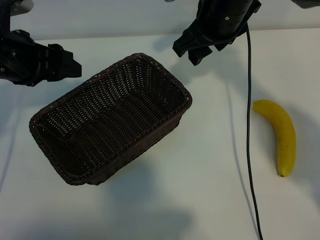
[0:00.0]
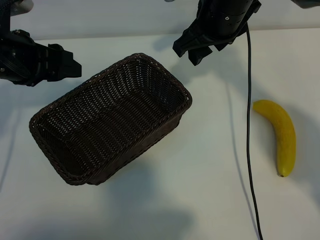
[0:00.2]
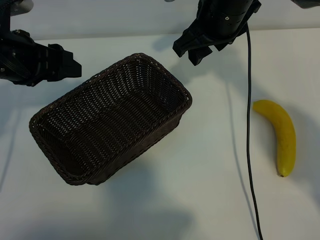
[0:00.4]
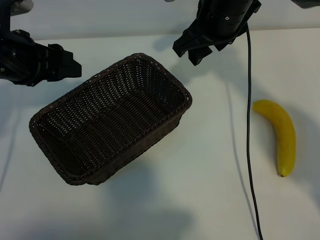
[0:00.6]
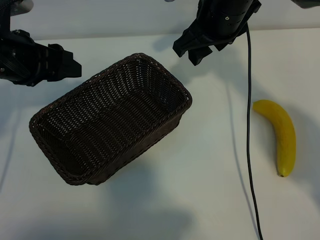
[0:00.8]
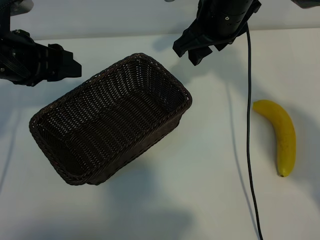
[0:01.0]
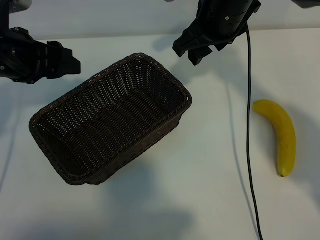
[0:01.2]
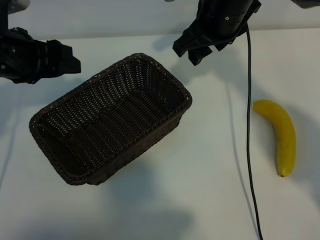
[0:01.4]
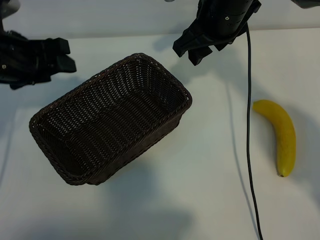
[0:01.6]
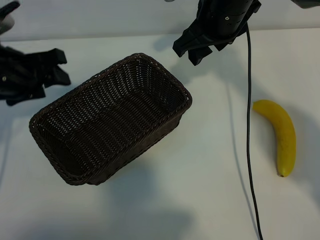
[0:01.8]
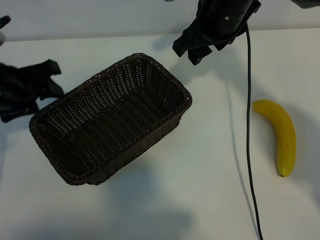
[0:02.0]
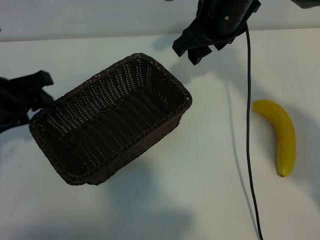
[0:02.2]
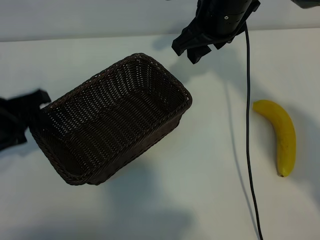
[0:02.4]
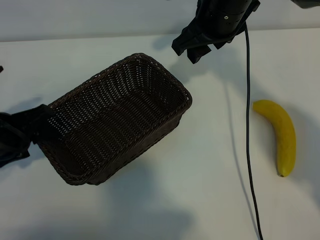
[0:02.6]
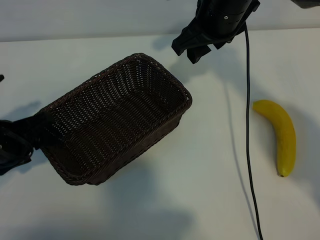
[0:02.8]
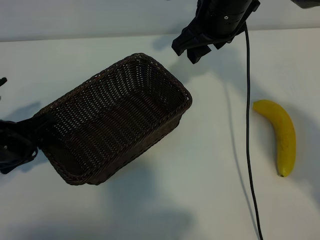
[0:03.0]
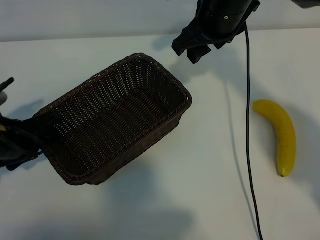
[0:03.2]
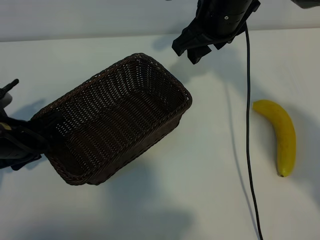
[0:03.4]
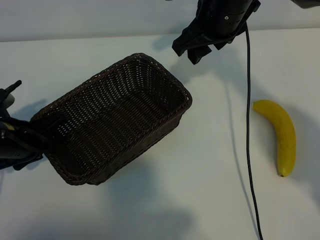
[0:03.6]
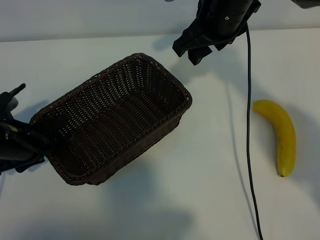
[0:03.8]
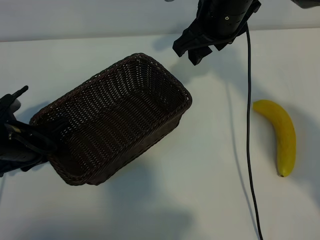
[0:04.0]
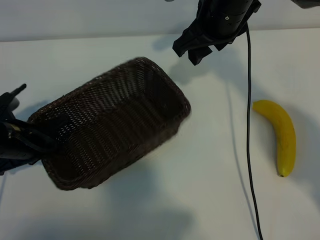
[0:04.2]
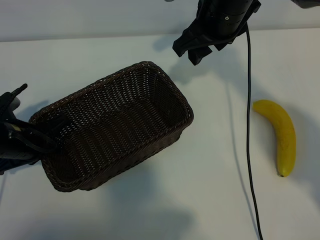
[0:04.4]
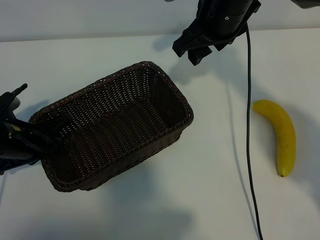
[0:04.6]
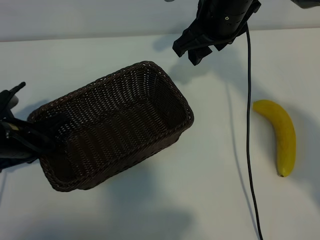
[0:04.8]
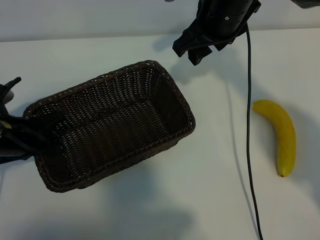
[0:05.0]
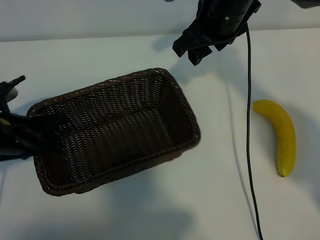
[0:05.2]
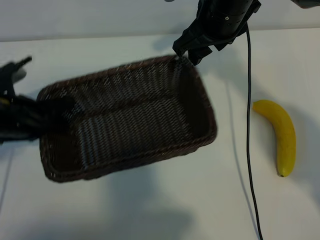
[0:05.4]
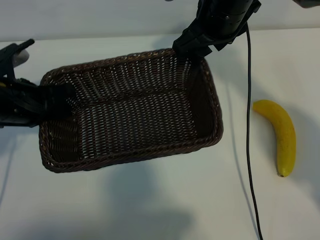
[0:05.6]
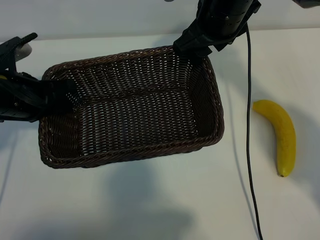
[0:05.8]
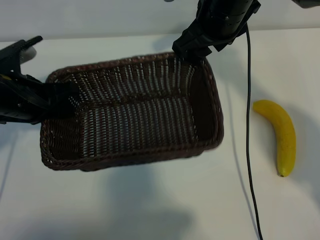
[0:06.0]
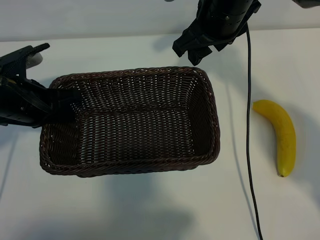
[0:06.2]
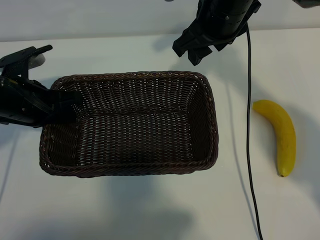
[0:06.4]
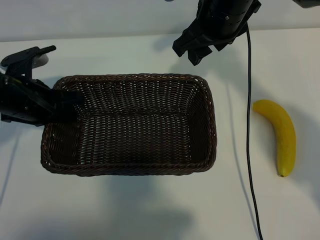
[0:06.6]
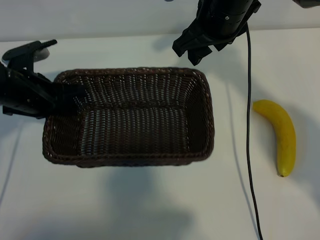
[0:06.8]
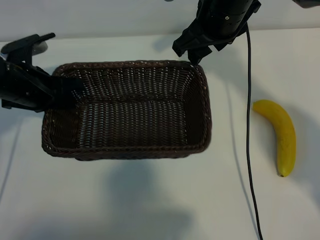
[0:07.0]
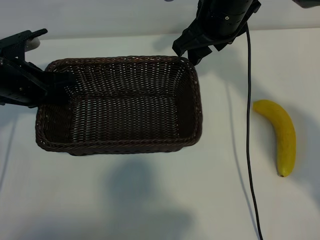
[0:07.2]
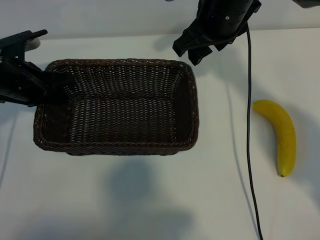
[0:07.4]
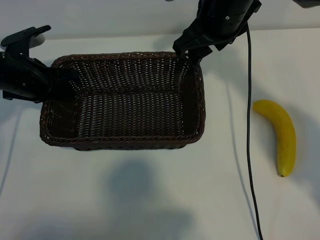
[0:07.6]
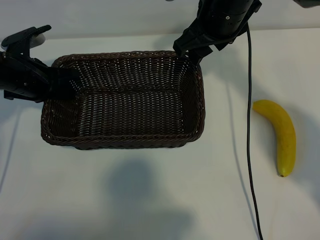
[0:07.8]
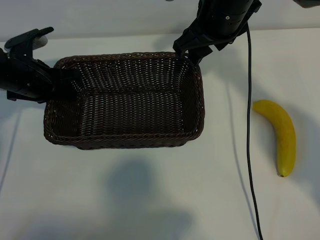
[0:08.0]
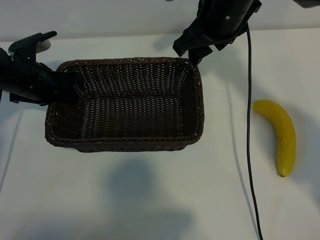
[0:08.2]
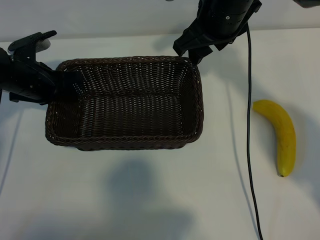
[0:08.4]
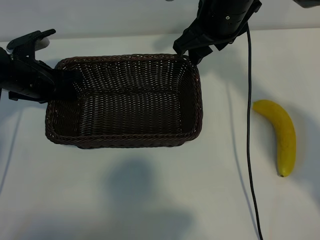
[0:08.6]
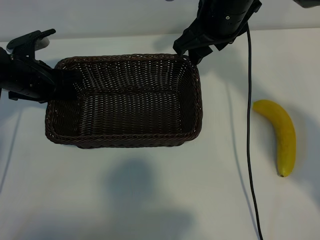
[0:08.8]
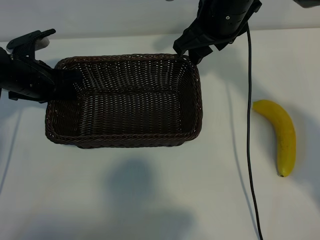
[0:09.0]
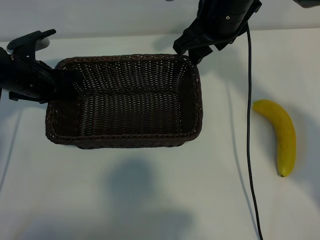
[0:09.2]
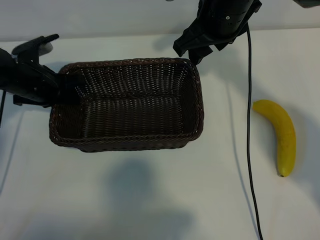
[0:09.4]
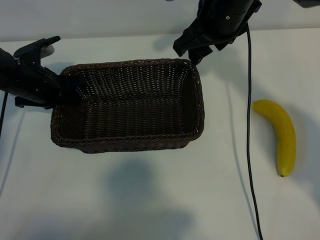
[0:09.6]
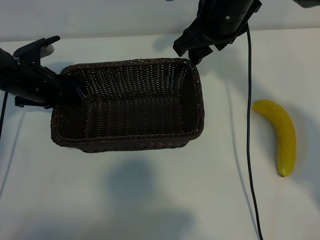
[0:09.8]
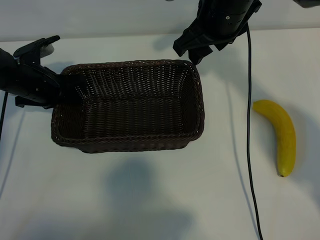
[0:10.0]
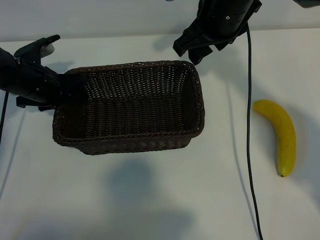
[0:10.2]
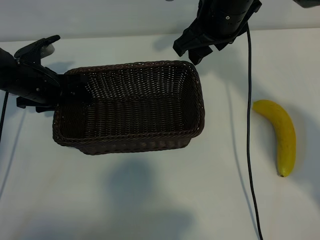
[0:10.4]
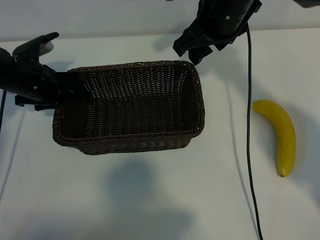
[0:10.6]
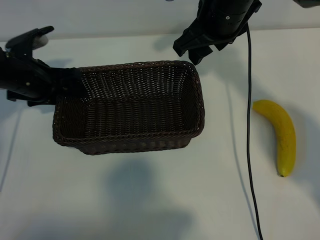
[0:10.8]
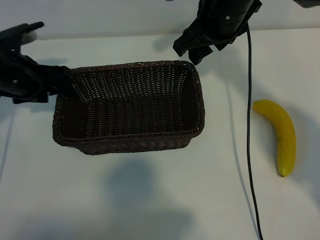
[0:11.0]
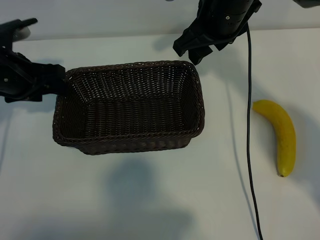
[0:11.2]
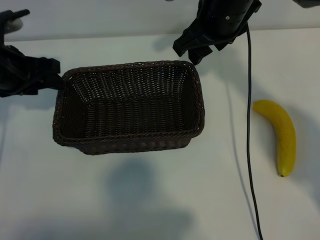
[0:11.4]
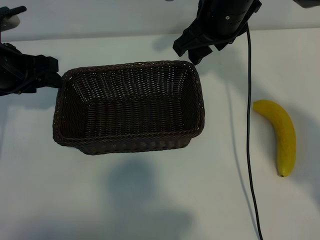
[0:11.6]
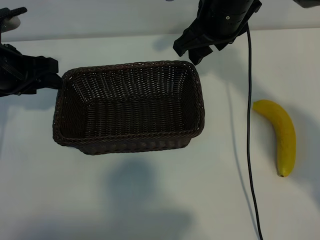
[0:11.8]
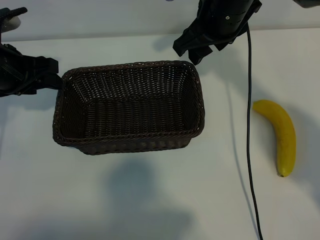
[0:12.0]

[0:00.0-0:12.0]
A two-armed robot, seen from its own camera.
Task of the whole recording: pick up the banana and put it into the basket.
Step, 0:01.2 to 0:04.6: Grasp the basket with the left gripper.
Step, 0:04.8 to 0:10.8: Place the basket in the center of the table with the left gripper.

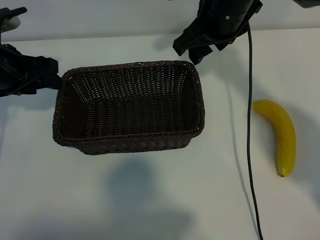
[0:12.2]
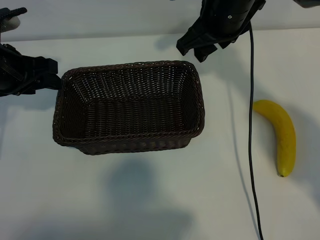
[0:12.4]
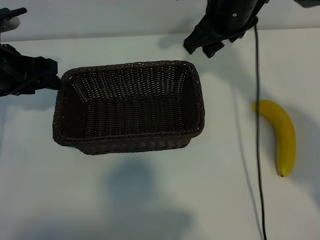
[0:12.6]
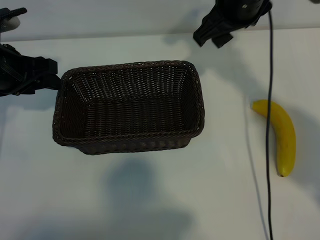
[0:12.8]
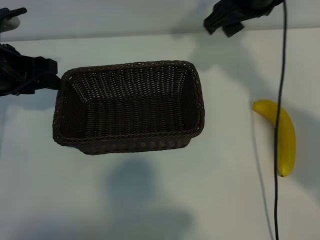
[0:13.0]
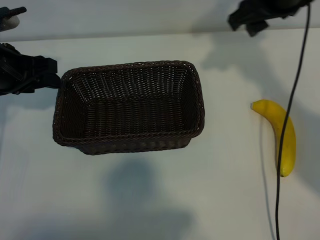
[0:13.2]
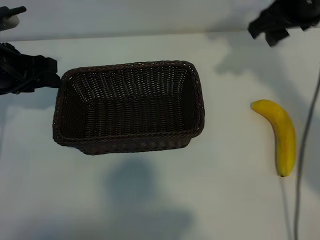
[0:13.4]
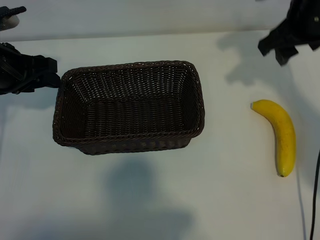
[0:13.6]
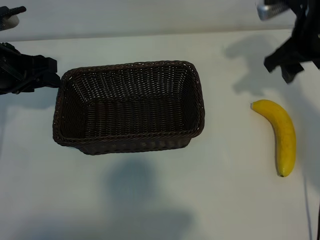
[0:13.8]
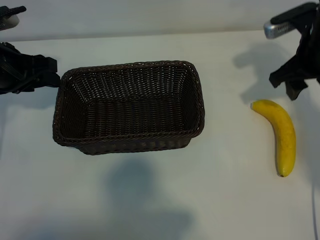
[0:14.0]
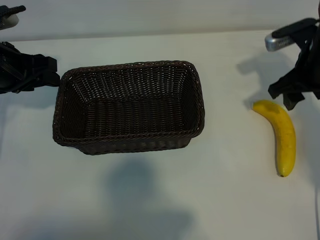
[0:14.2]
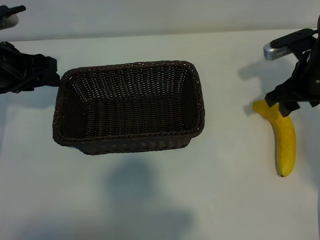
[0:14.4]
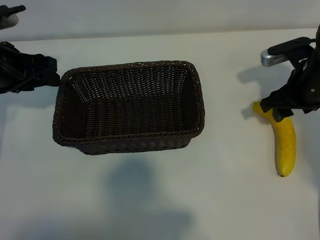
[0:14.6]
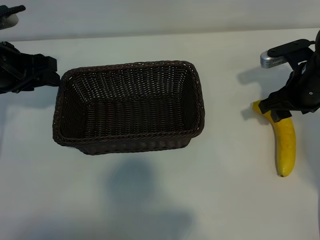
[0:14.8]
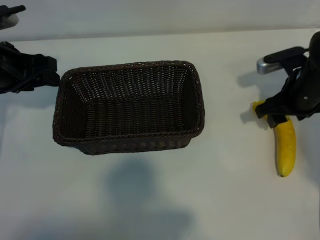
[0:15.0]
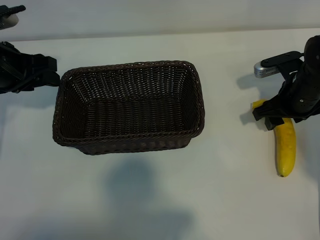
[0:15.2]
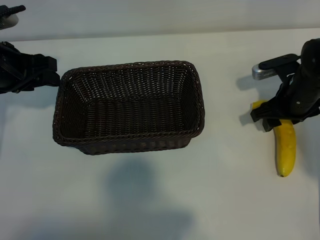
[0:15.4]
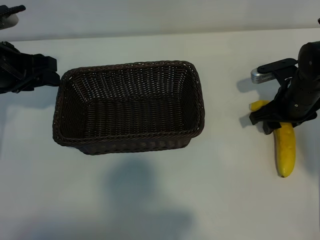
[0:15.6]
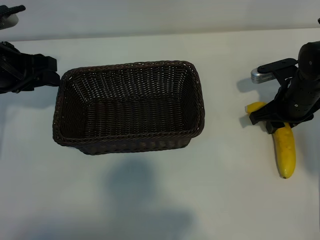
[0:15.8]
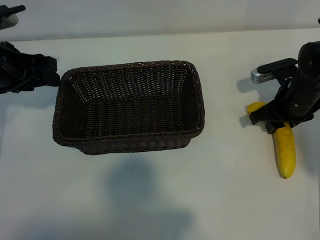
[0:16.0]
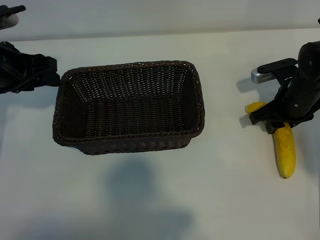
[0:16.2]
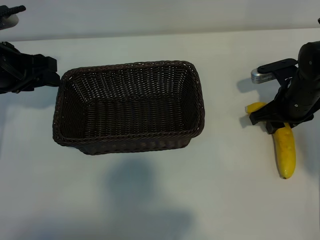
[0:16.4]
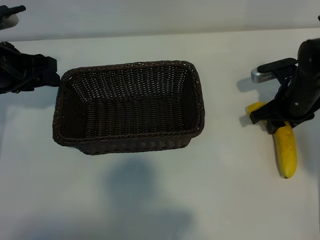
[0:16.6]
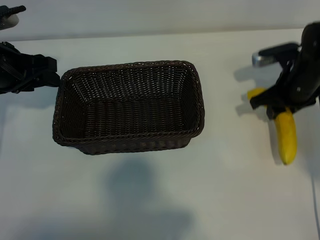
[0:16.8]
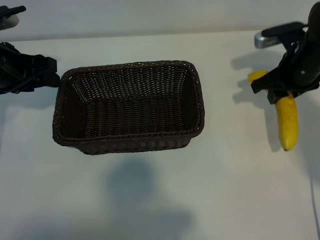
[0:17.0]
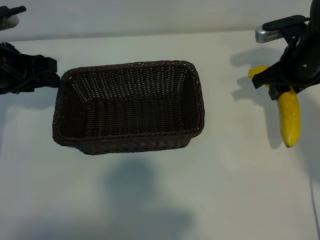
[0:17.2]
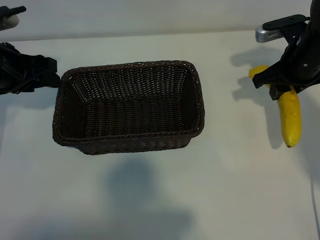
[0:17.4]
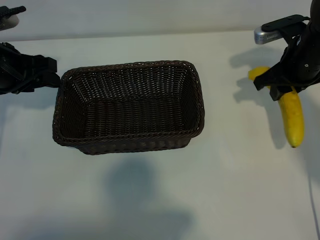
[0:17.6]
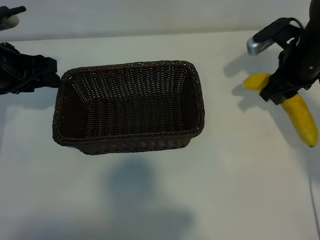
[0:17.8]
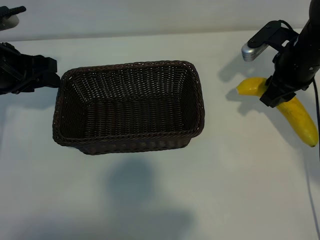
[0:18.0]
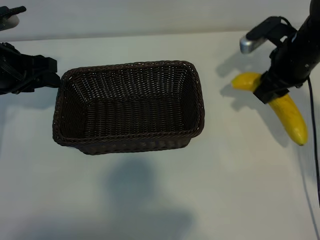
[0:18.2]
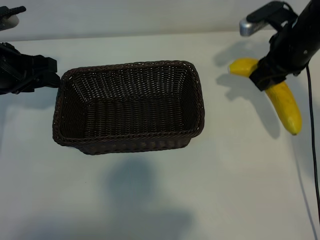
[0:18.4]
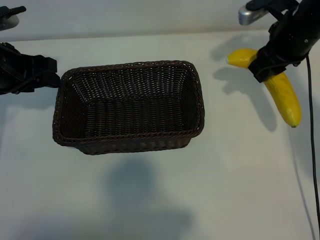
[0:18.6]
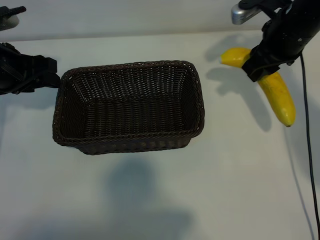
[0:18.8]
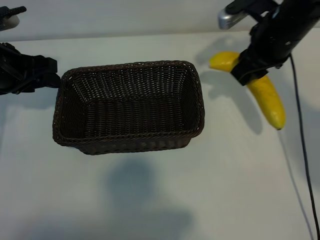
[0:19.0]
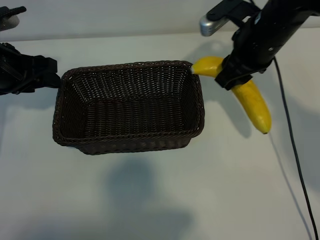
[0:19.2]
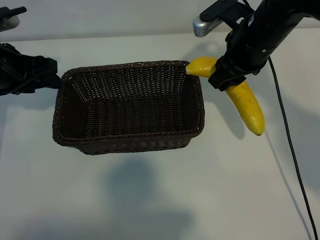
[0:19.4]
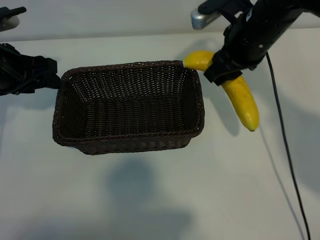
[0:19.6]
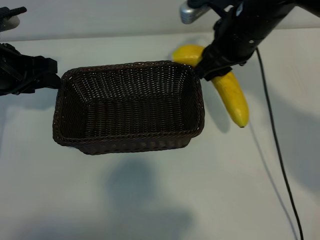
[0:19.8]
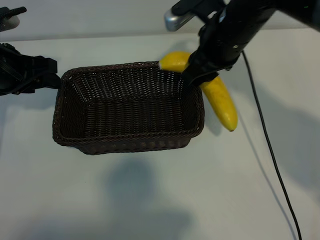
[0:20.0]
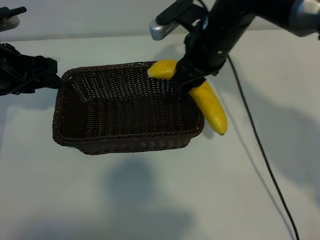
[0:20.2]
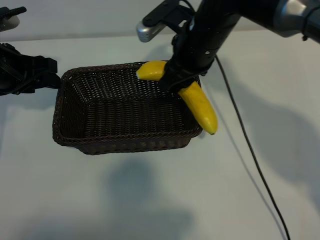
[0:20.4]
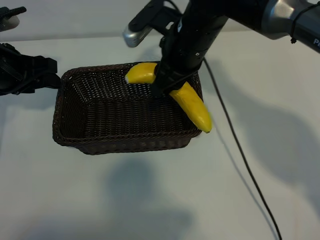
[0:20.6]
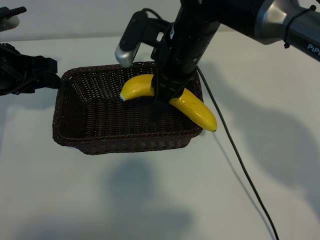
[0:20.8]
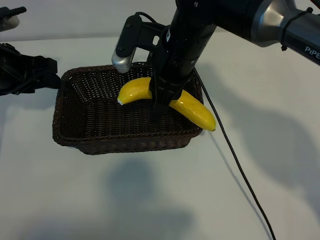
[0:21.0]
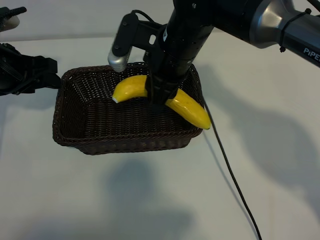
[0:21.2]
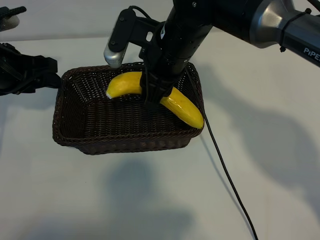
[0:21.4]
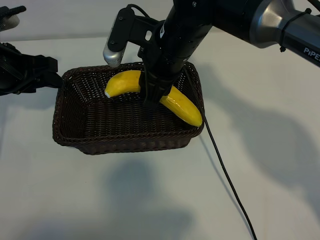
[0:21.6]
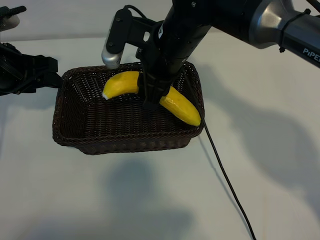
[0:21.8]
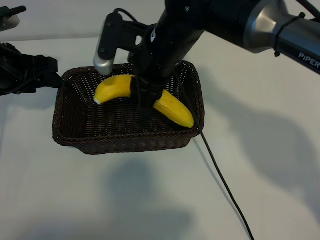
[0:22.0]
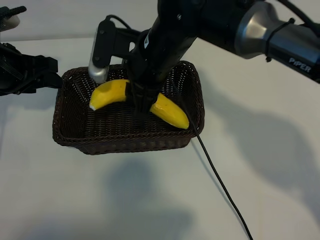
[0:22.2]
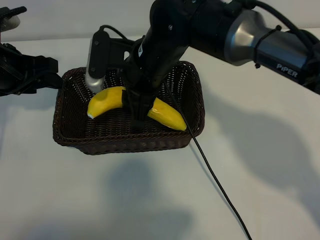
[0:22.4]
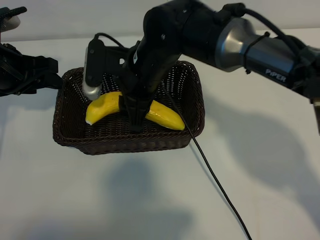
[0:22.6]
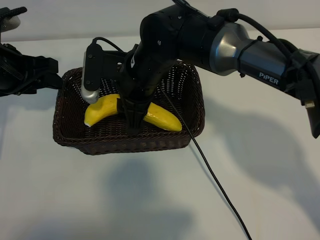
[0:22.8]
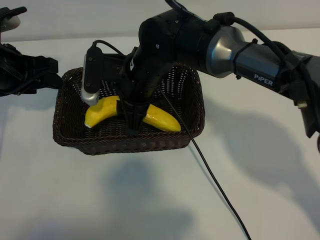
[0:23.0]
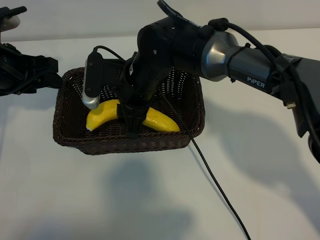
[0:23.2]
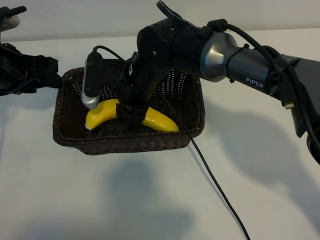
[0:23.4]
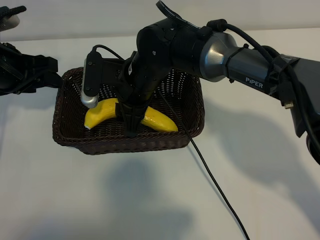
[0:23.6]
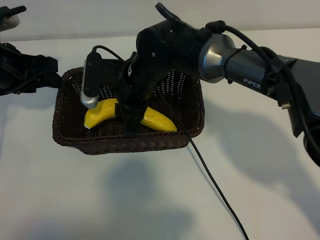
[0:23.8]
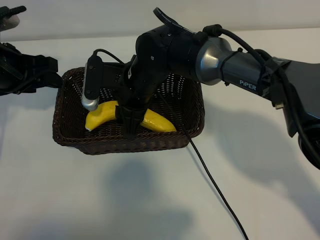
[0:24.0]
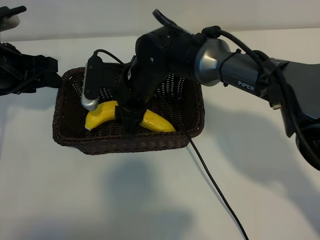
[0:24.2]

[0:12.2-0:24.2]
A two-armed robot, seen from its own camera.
Task of the whole recording: pick up the banana and put it into the basket.
Step, 0:12.2 to 0:16.2: Grasp the banana with right gripper.
